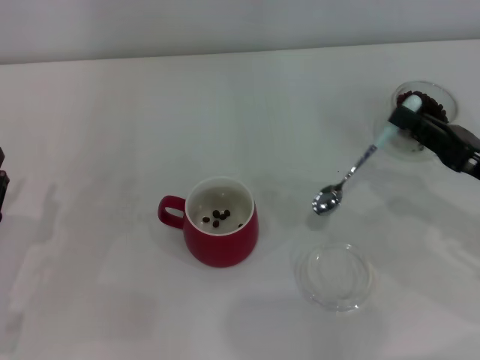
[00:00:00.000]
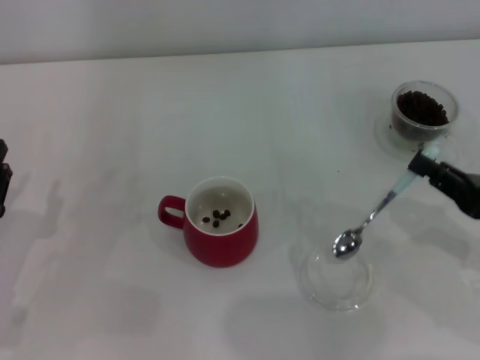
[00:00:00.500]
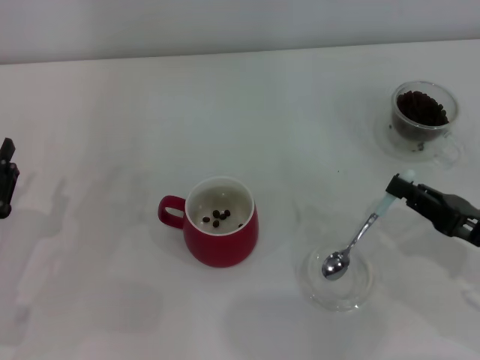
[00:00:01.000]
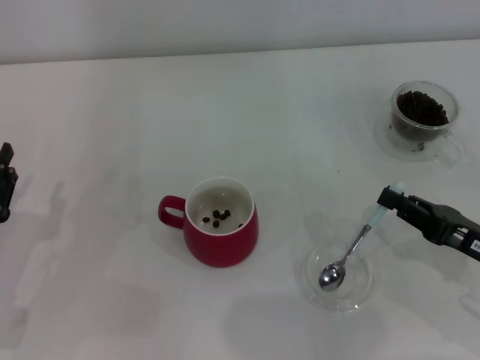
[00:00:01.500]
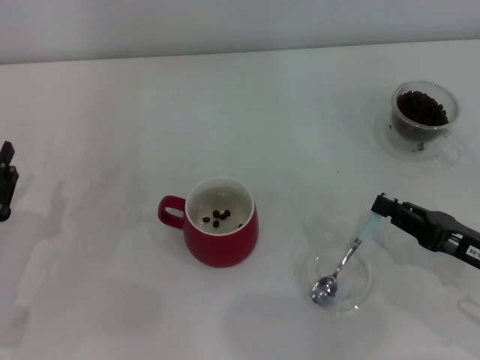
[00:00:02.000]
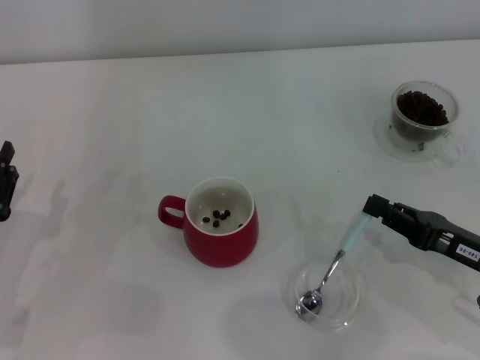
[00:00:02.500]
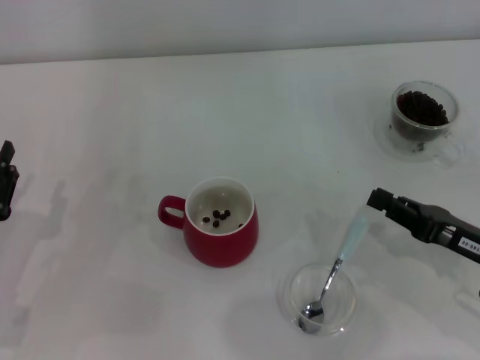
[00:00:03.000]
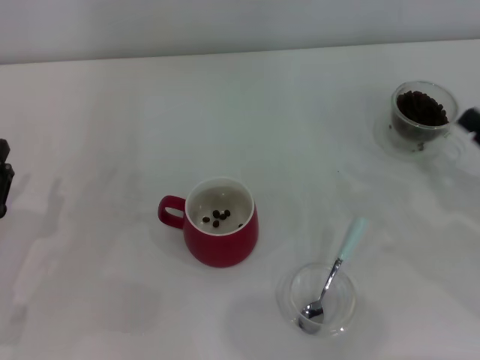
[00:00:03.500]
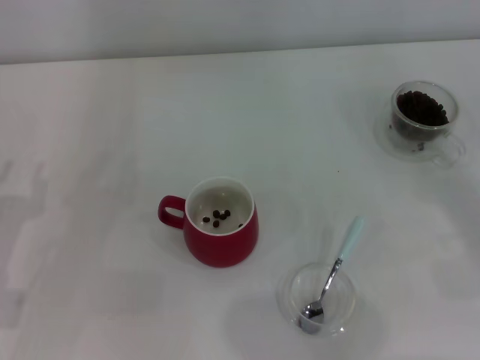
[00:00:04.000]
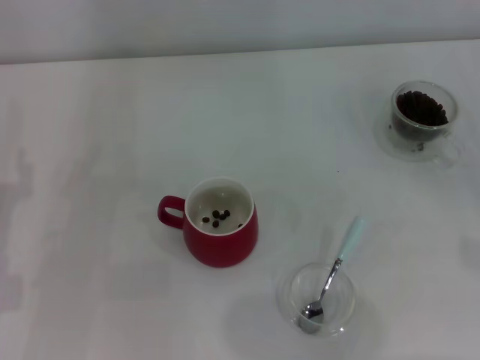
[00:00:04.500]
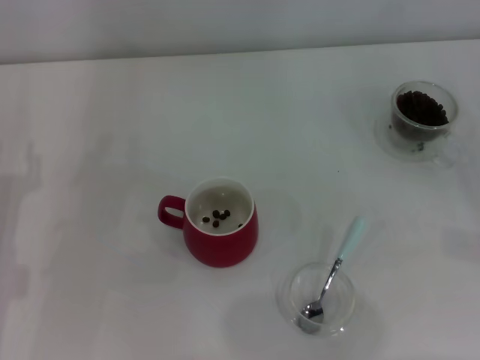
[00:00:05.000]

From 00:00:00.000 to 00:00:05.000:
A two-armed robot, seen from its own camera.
Task of the whole recording: Use a blue spoon to take out the coffee beans from the glass and pour them into the red cup.
Step, from 00:00:00.000 to 00:00:03.000: Place the spoon back in its original place with the right gripper.
From 00:00:00.000 to 00:00:02.500: The right gripper moves downward, approximately 5 cm.
From 00:00:02.500 to 00:00:05.000: The left gripper ends up approximately 5 cm from where it was. The right gripper goes roughly 15 cm to the right, and opens.
